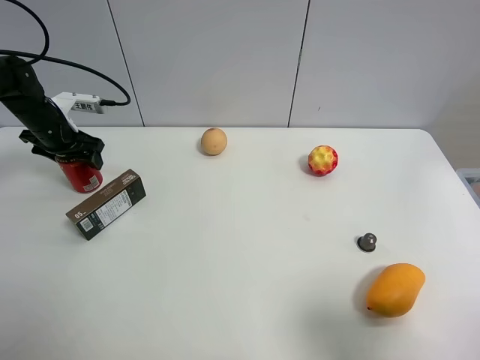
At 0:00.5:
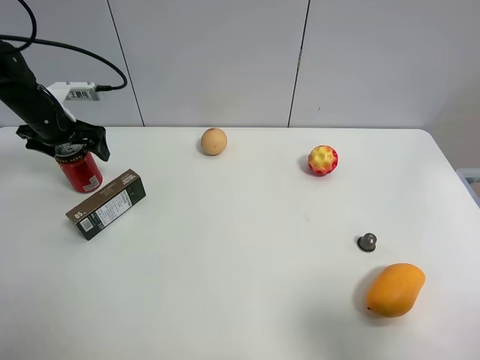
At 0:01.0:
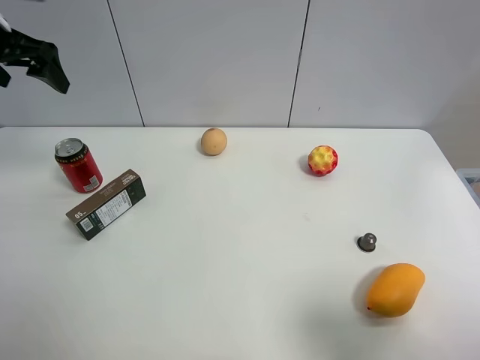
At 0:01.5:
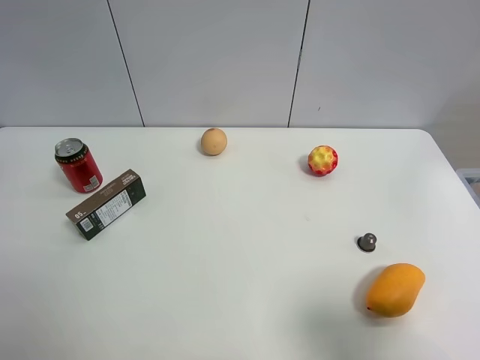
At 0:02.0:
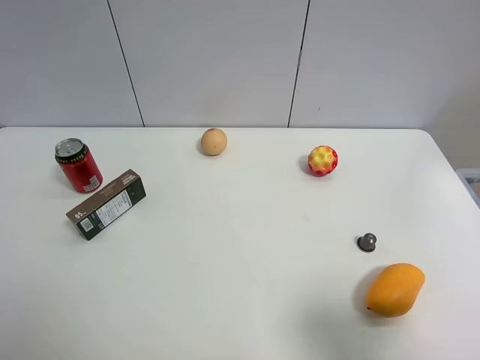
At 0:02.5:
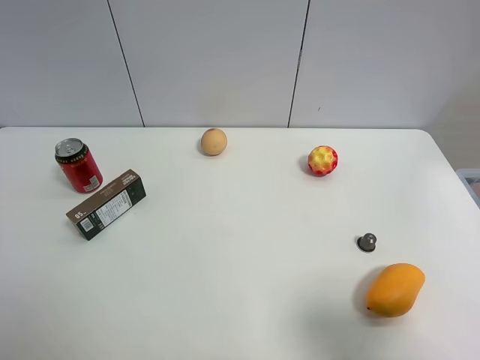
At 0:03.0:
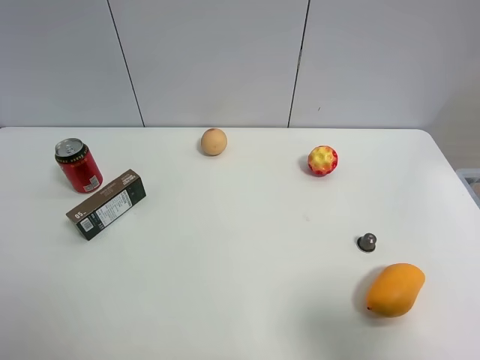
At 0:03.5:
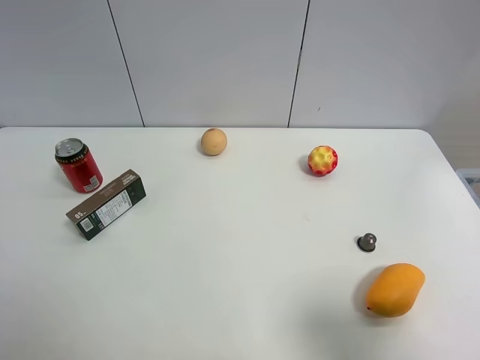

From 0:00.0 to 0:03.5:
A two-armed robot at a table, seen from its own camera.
Task of the whole recording: the gripper move the object.
From 0:00.0 to 0:02.0: The left gripper shifts roughly 40 cm backward and upward, and opens.

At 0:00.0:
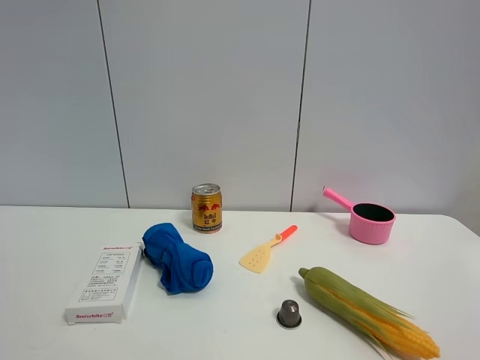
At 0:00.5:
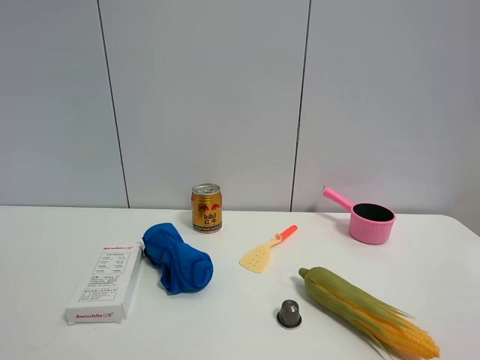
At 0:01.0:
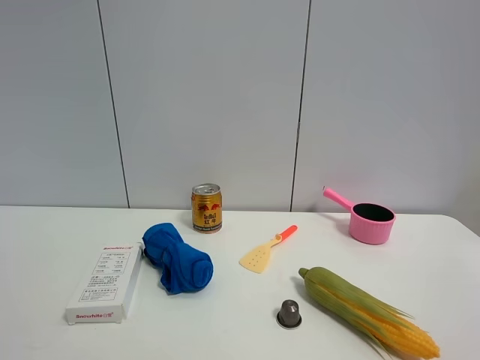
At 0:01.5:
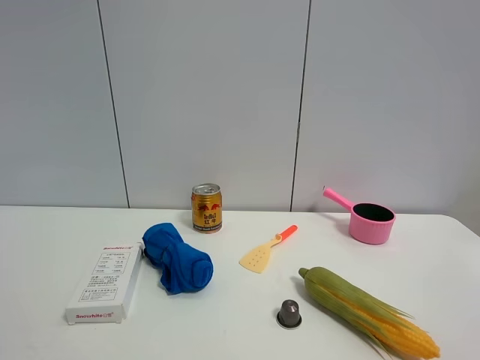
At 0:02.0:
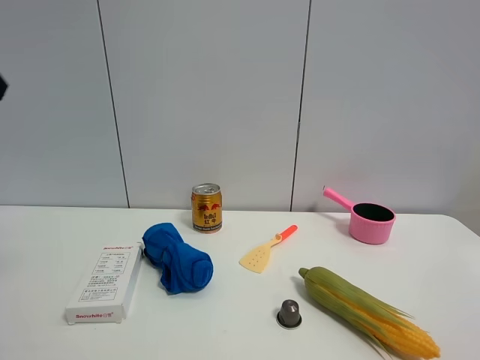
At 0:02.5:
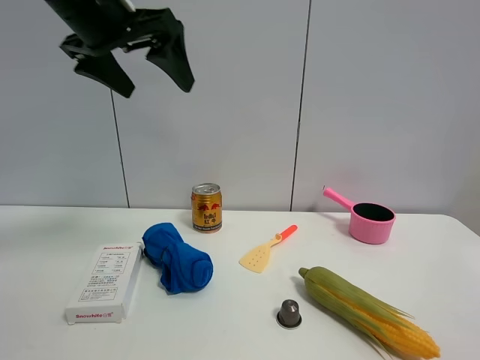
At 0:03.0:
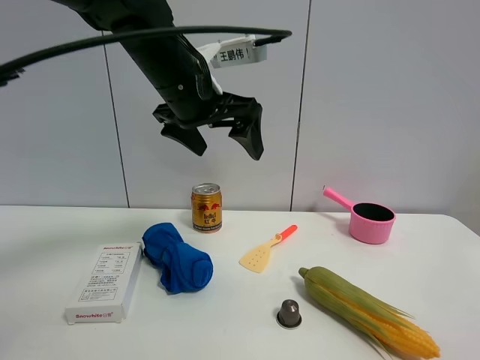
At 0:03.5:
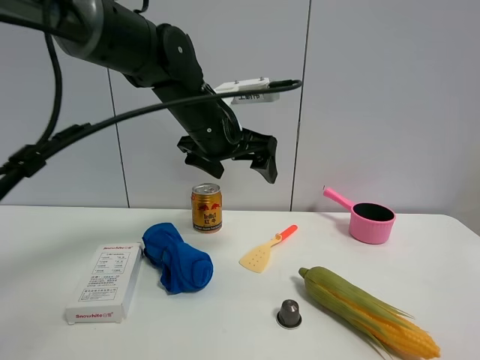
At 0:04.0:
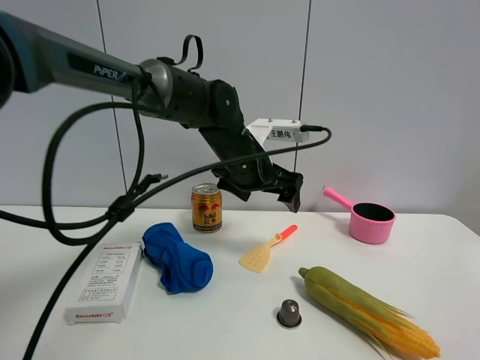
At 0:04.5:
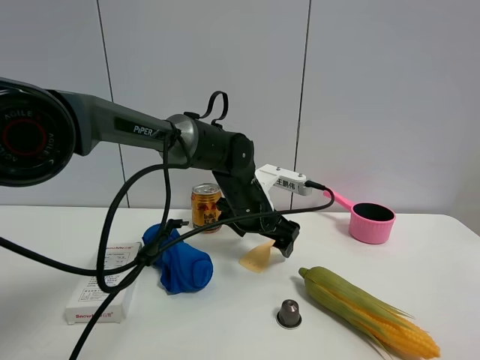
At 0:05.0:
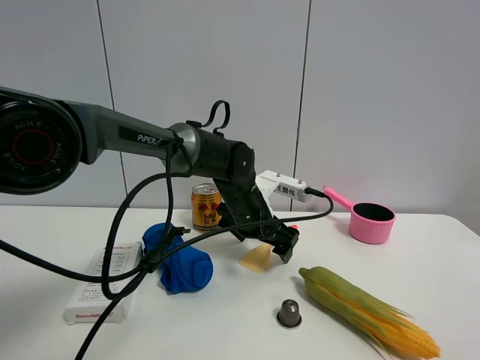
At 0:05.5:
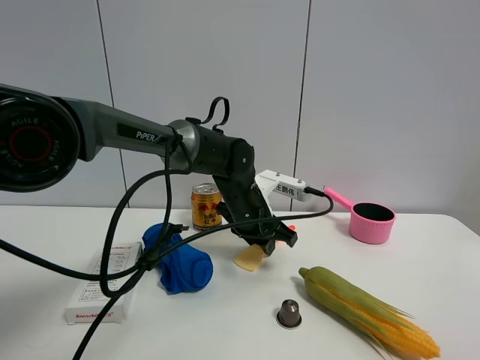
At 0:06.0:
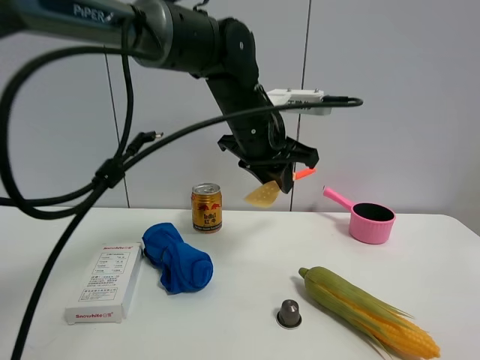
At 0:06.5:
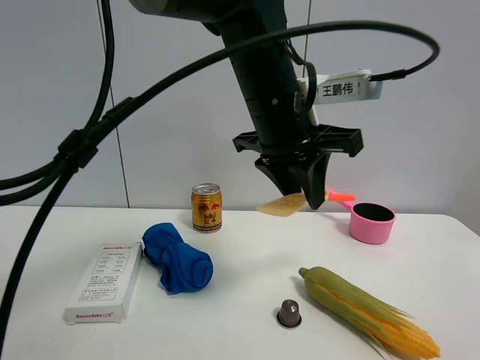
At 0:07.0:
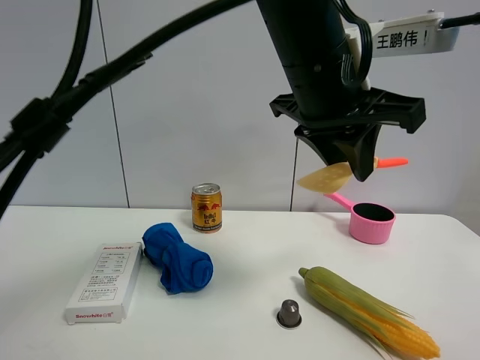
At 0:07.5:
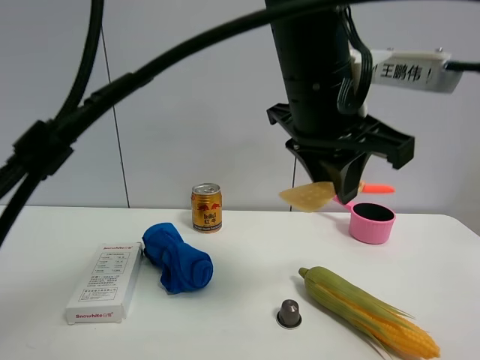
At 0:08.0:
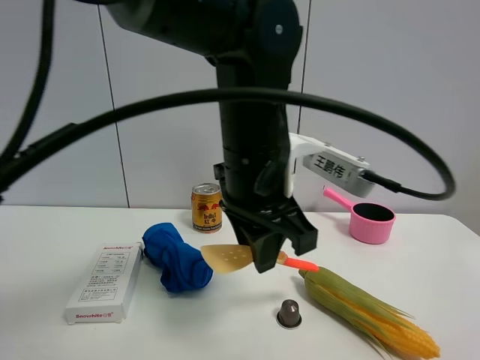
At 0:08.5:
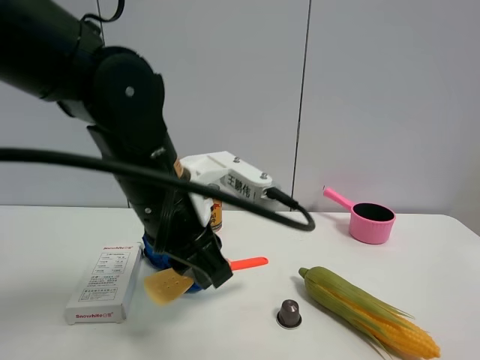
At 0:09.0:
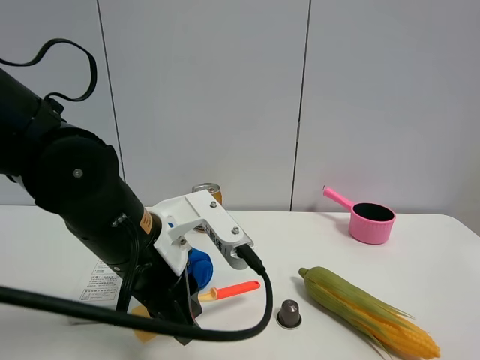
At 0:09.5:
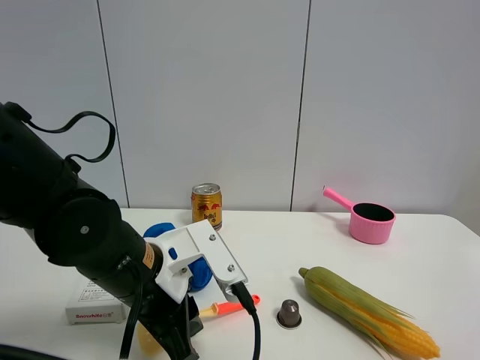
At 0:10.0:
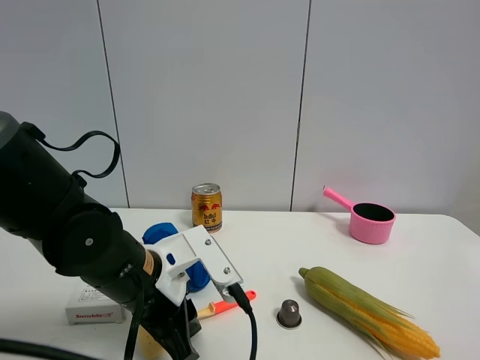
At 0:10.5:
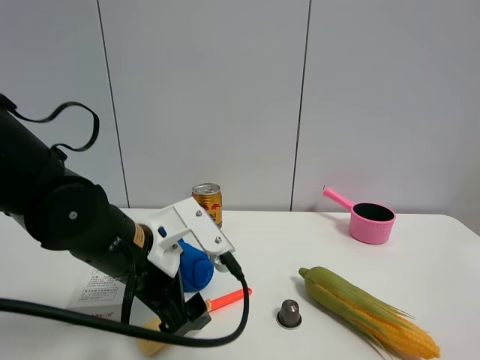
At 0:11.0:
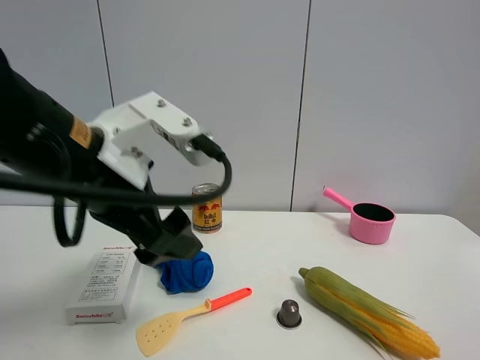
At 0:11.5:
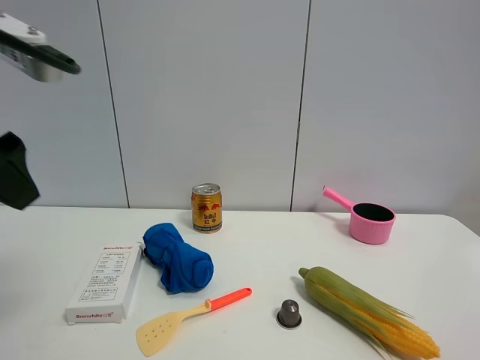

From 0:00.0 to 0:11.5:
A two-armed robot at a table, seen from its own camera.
Task of the whole recording: the gripper move the object.
Step, from 0:00.0 to 0:05.0: Grasp the cooking shovel with the left gripper.
Step, from 0:05.5 to 0:10.0: Place the cooking shovel on the table with the left gripper.
From 0:02.0 to 0:04.0: The left gripper is displaced to the right, forward and downward by approximately 40 cm.
From 0:04.0 to 0:06.0: The left gripper is displaced upward by some 5 cm, and closes its fingers.
From 0:06.0 to 0:07.5: The left gripper heads backward and to the right, covering some 15 cm.
From 0:07.5 to 0:09.5: The left gripper goes roughly 25 cm downward and to the left.
From 0:09.5 to 0:11.5: The left gripper shifts some 25 cm upward and to the left, and opens.

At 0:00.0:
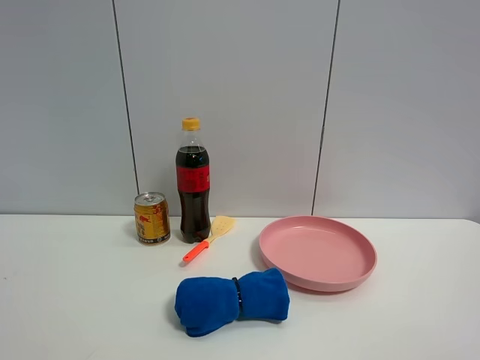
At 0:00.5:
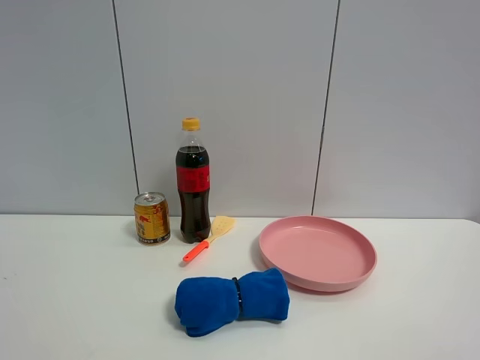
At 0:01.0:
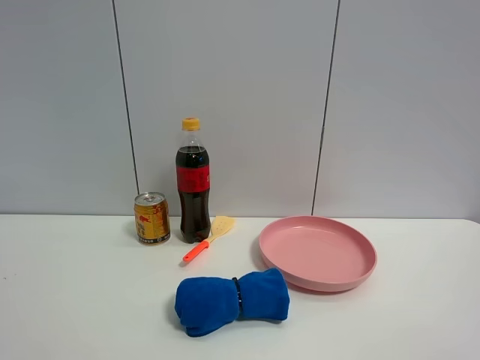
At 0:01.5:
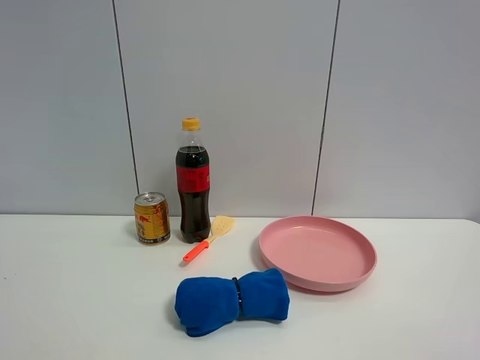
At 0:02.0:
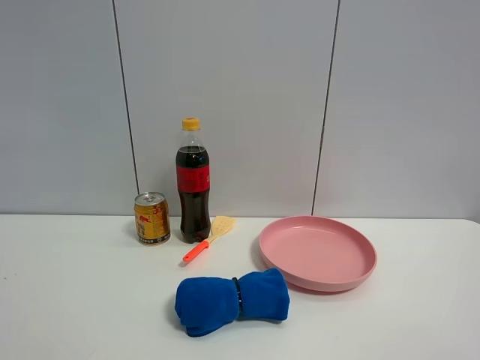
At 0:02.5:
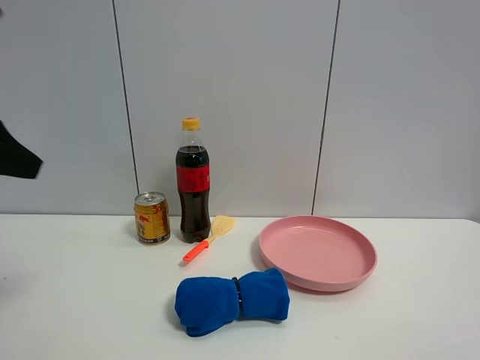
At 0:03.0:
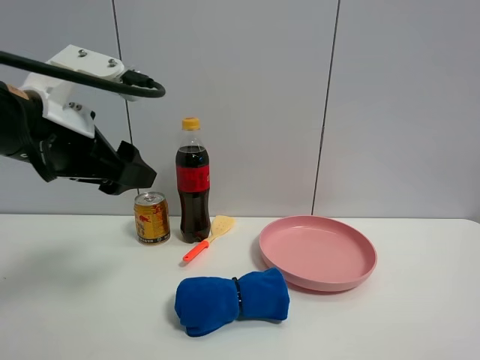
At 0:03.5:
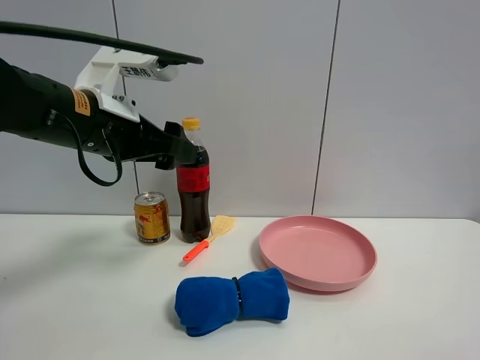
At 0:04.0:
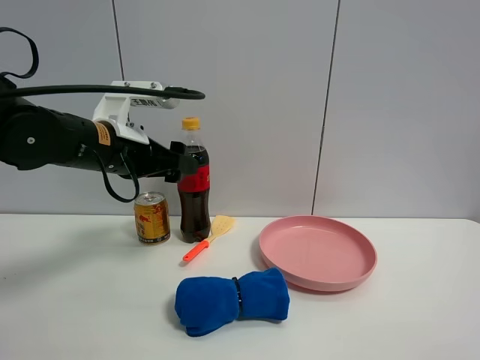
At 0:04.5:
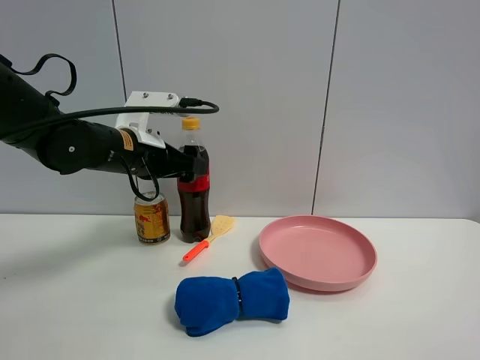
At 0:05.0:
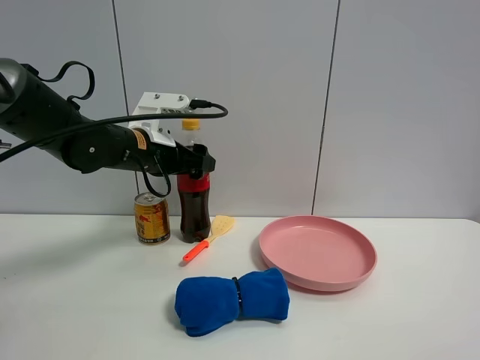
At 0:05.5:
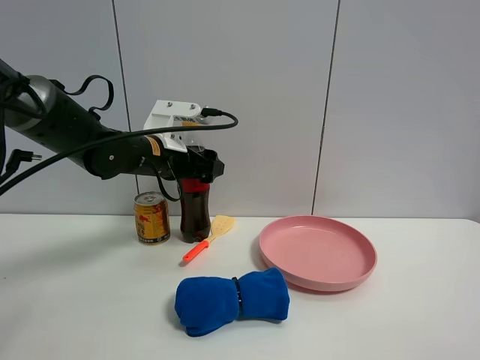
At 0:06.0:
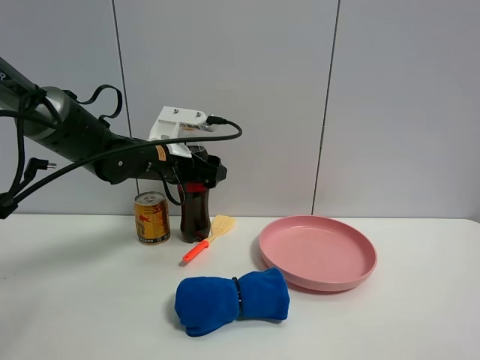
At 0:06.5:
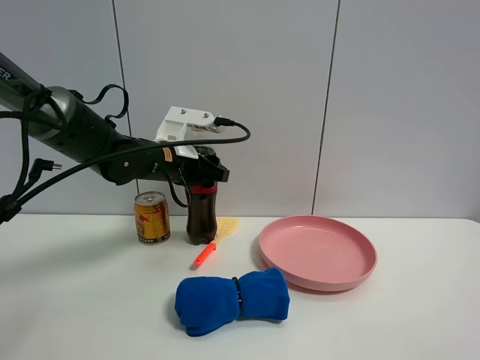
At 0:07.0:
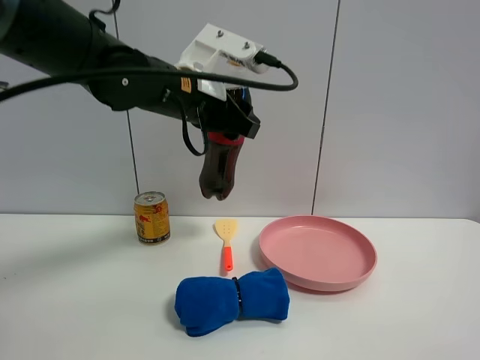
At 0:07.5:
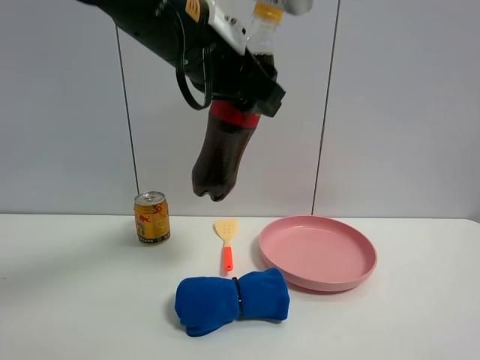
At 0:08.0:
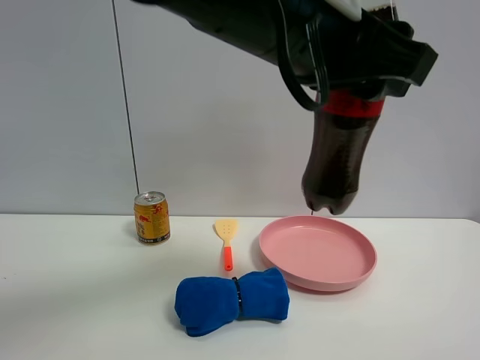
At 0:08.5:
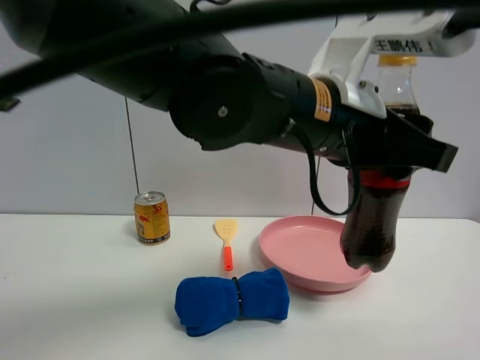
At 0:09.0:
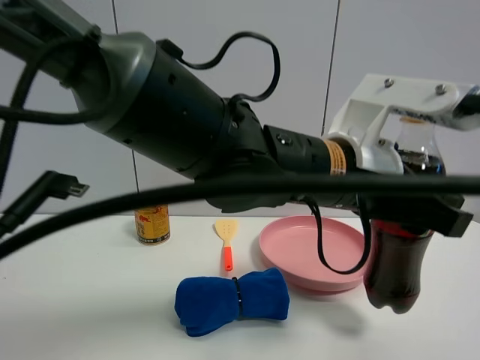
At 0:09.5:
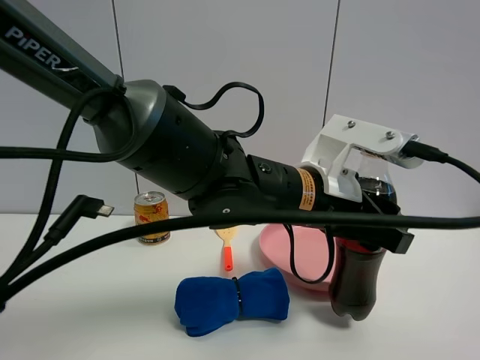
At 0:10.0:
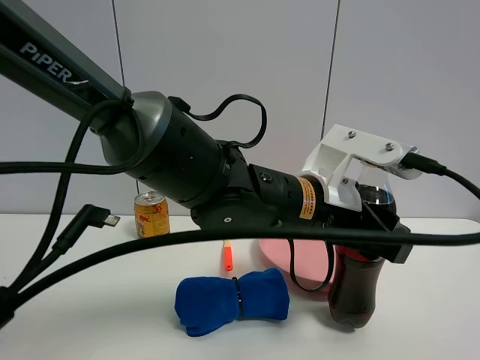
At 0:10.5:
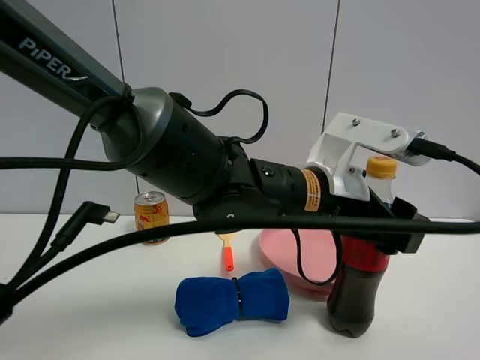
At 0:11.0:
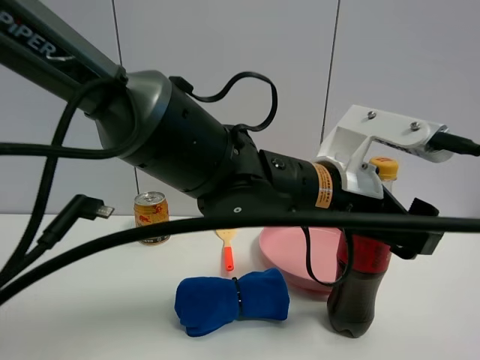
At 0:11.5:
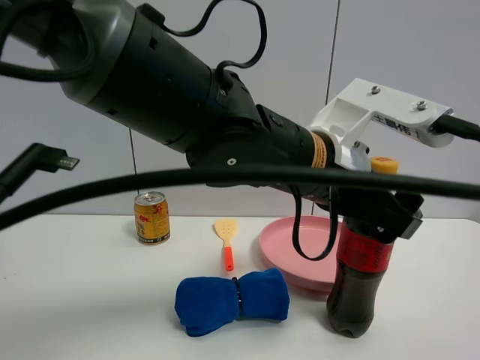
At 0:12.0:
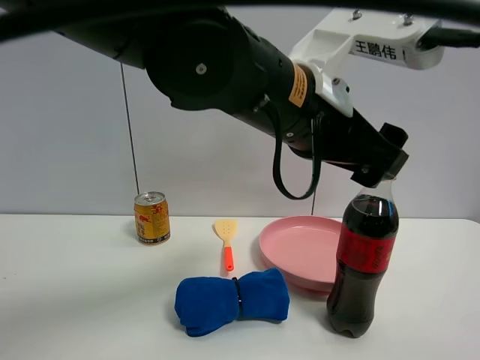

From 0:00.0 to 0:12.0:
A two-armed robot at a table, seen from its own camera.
Task of the whole recording: the gripper move the object.
Step, from 0:00.0 to 0:06.0: Grasp the coke with the left gripper.
Step, from 0:06.5 to 0:10.5: Place the coke on the table with the left gripper.
From 0:02.0 to 0:04.0: The left gripper goes approximately 35 cm forward, downward and to the right, and opens up.
From 0:04.0 to 0:06.0: The left gripper shifts about 10 cm forward.
From 0:06.0 to 0:08.0: The left gripper moves backward, upward and to the right, some 30 cm, and closes up.
From 0:08.0 to 0:10.0: The left gripper shifts some 15 cm downward.
From 0:10.0 to 0:12.0: The left gripper travels upward by about 10 cm, and opens up.
